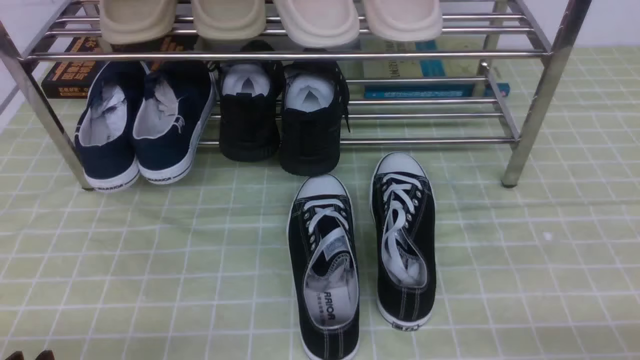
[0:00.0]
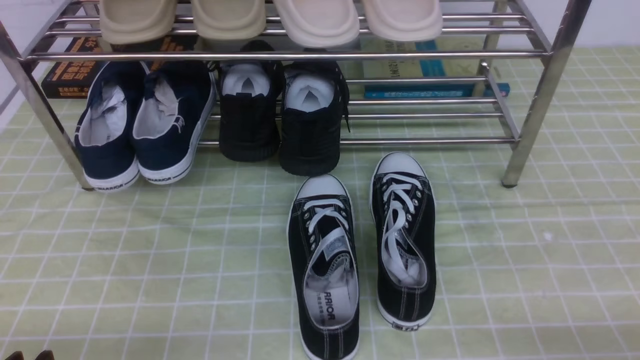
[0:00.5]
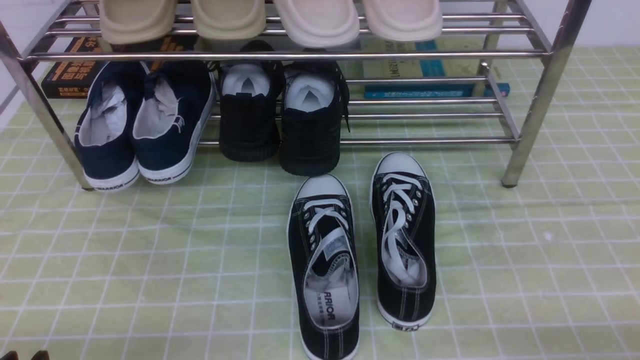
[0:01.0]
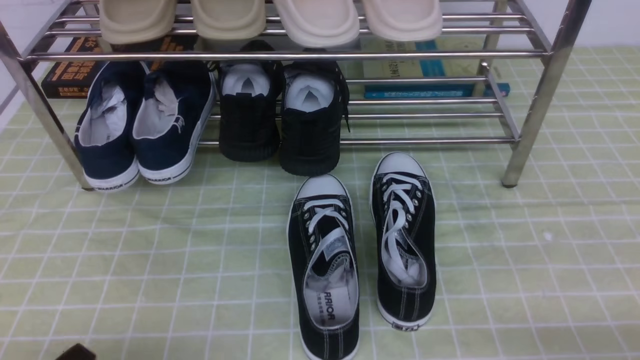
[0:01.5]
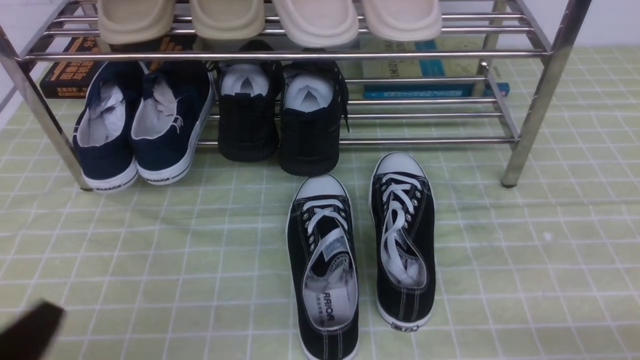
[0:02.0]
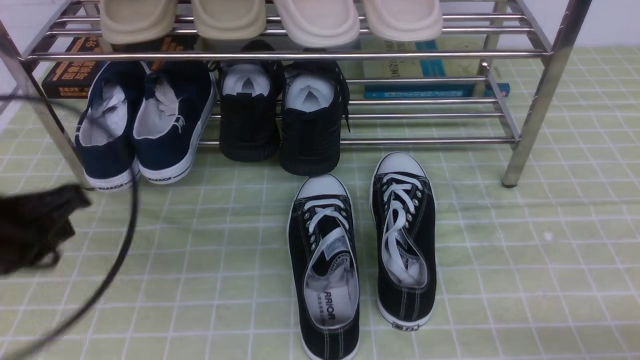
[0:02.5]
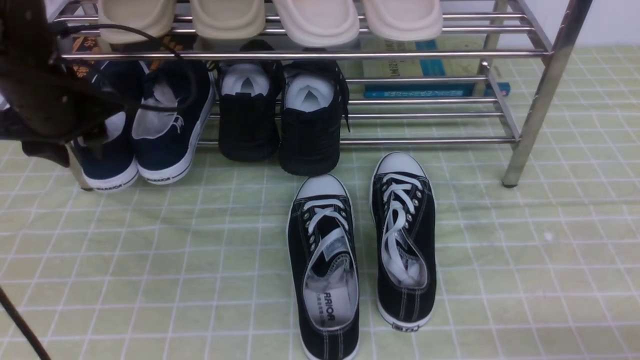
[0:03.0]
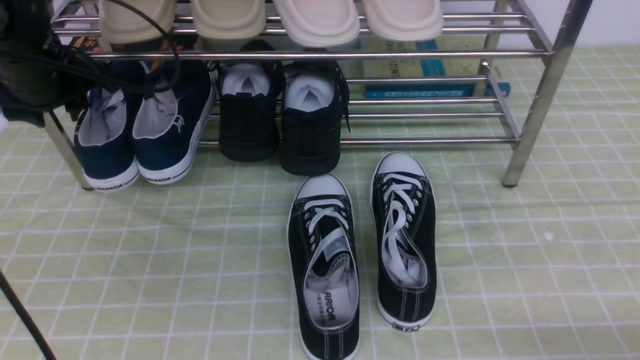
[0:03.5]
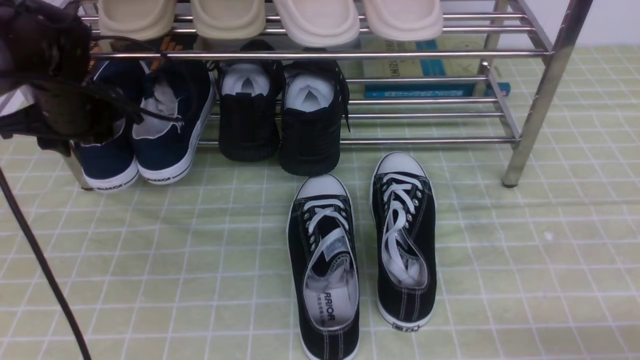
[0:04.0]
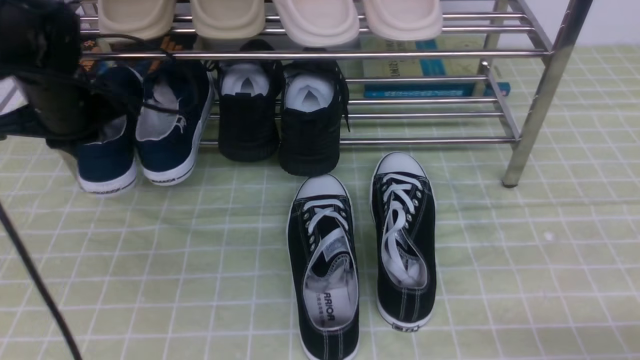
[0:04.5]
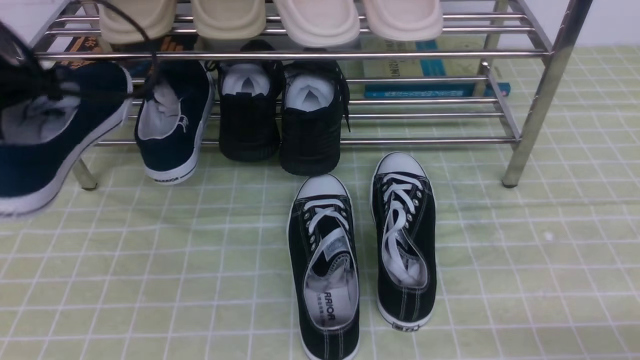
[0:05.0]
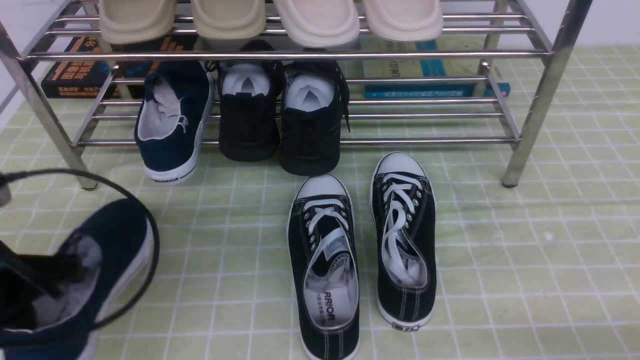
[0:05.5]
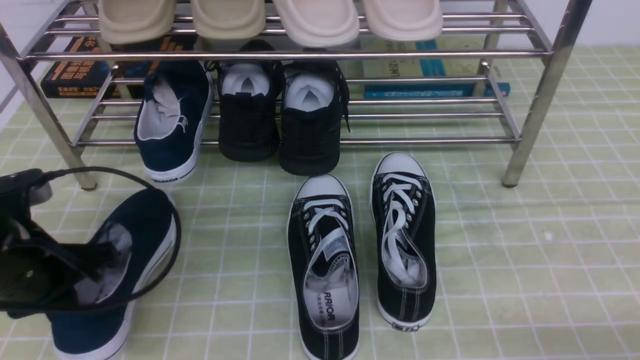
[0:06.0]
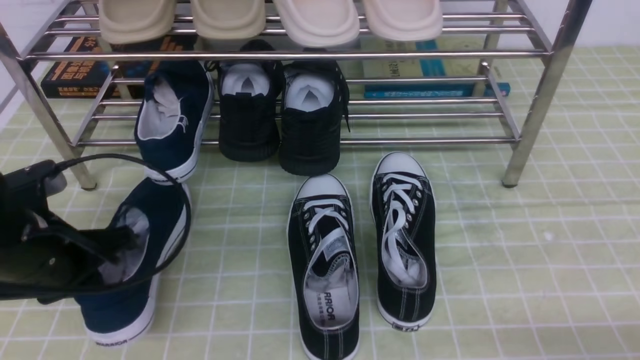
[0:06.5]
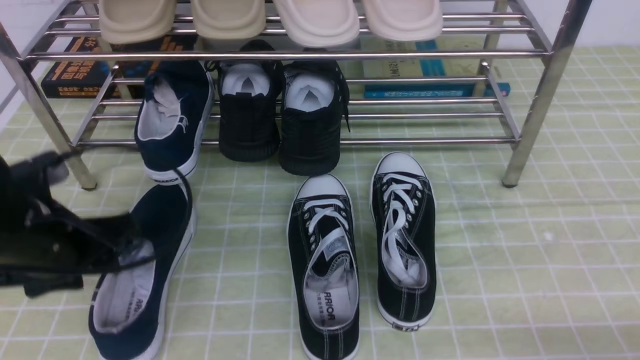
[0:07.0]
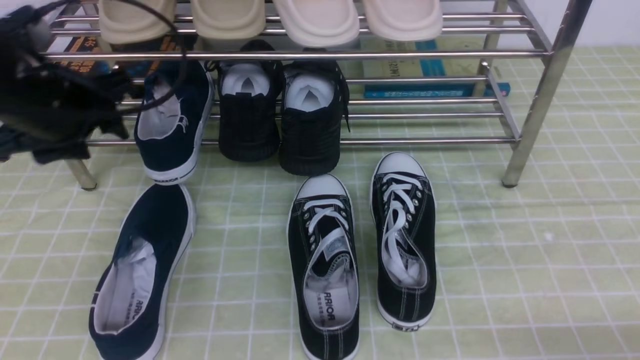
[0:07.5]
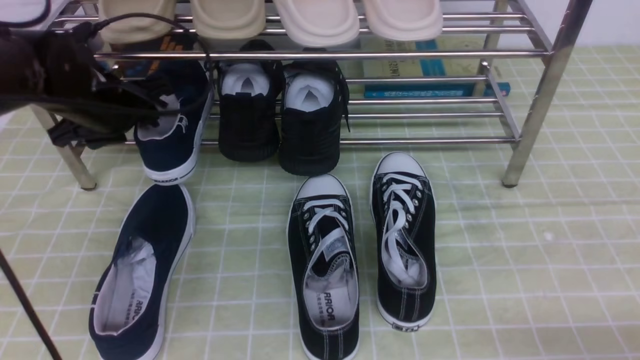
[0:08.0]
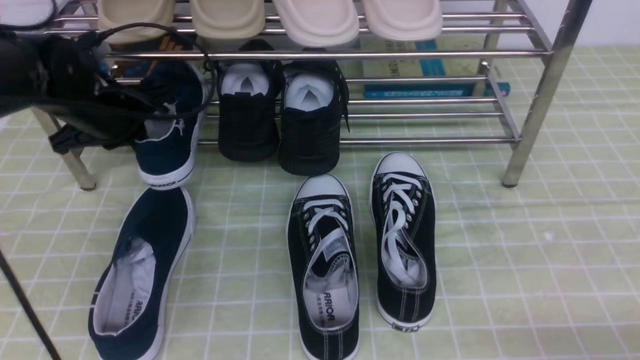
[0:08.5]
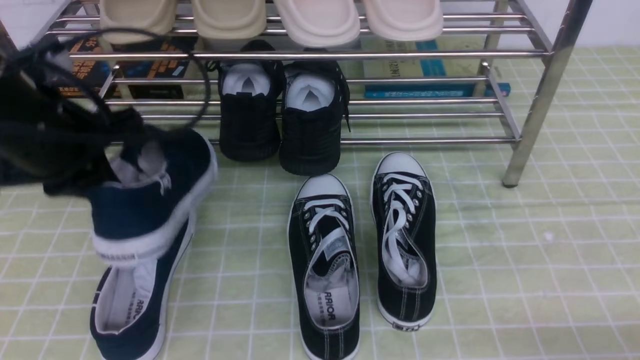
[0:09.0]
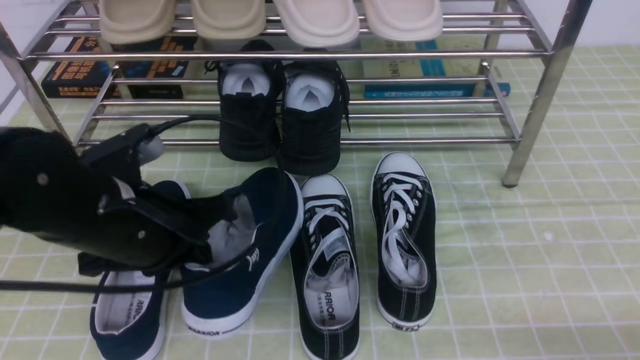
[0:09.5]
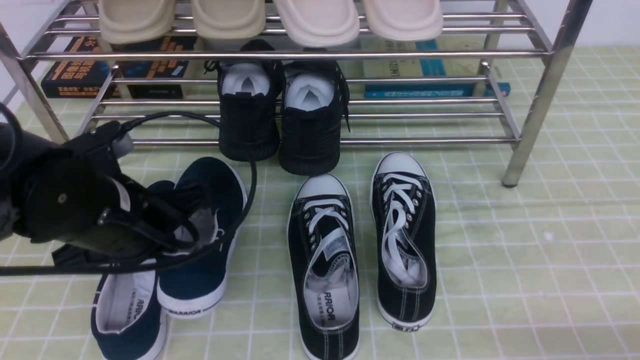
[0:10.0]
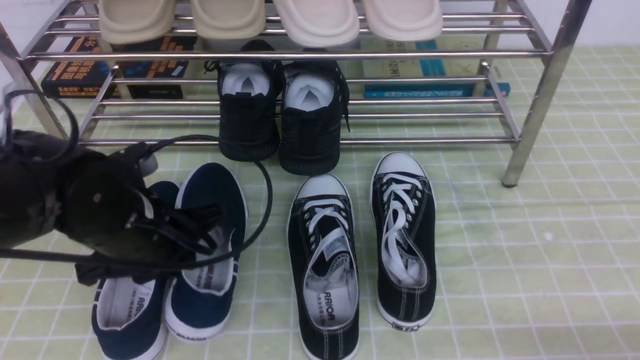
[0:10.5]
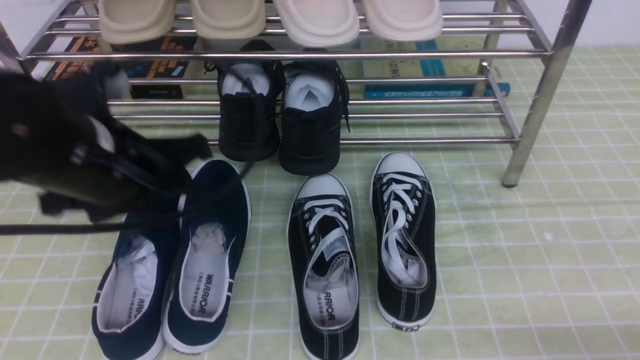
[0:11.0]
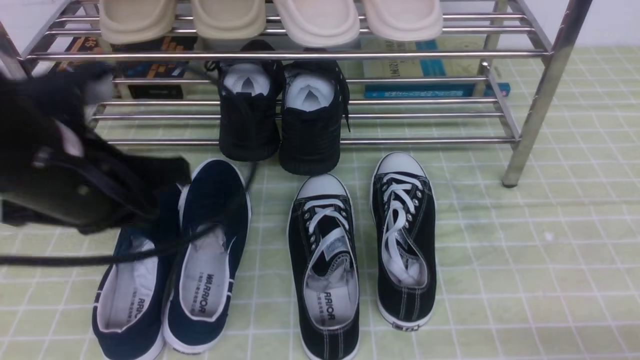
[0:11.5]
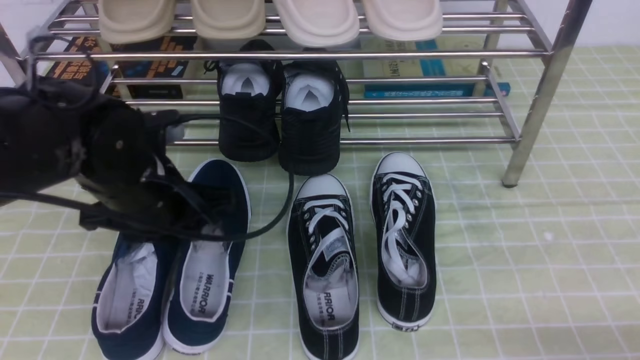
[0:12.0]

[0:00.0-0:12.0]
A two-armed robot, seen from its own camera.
Step, 0:00.0 to 0:04.0: use the left arm to clamp a shoe on the left side of the shoe rack.
Step, 0:05.0 to 0:07.0: Use your left arm to remove the clamped shoe from the shoe rack and put it down.
Step, 0:07.5 to 0:08.0: use the left arm to clamp a shoe on the left side of the shoe rack.
Step, 0:08.5 to 0:11.0: Use your left arm to remove the clamped shoe from the shoe rack and put it down.
0:00.0 to 0:02.0: The left gripper heads upward, covering about 5 cm.
0:02.0 to 0:04.0: The left gripper heads forward, covering about 35 cm, and opens its fingers.
0:04.0 to 0:06.0: The left gripper shifts about 20 cm backward, and closes up.
0:06.0 to 0:08.0: The left gripper travels forward by approximately 20 cm, and opens.
0:08.0 to 0:10.0: The left gripper goes about 15 cm backward and to the right, and closes its fingers.
0:10.0 to 0:12.0: The left gripper goes upward and returns, approximately 5 cm each way, and opens.

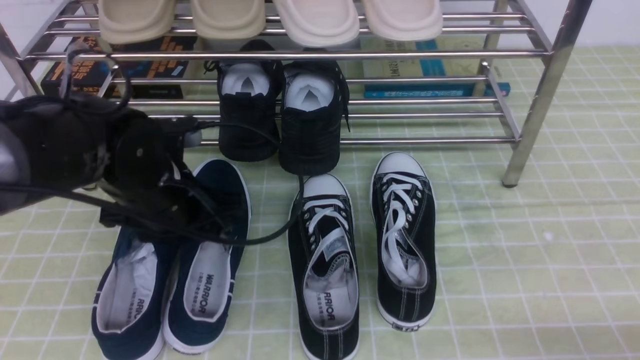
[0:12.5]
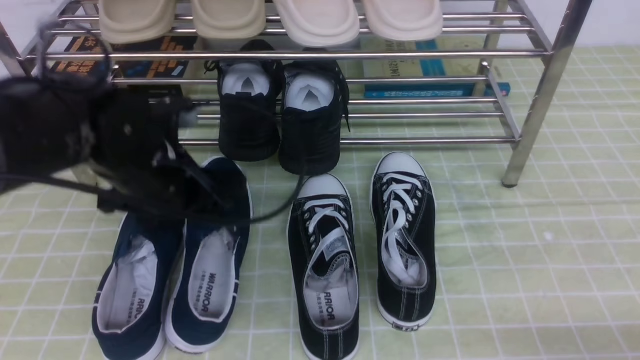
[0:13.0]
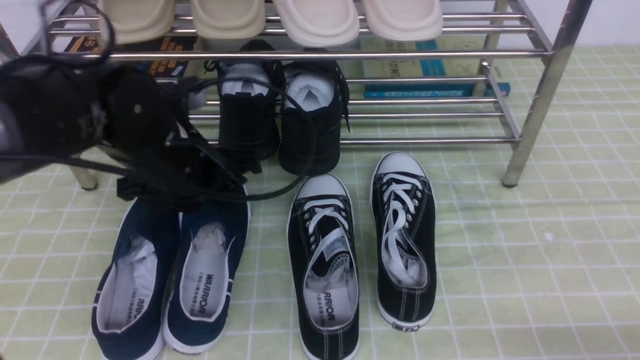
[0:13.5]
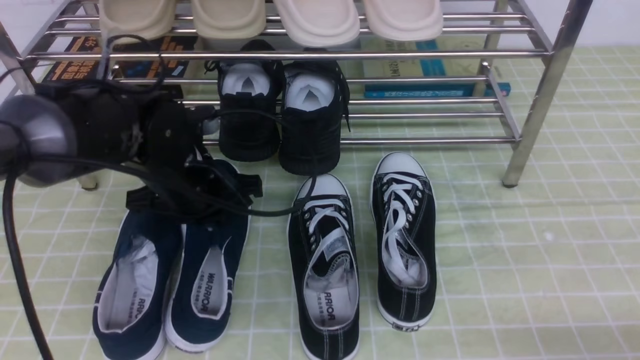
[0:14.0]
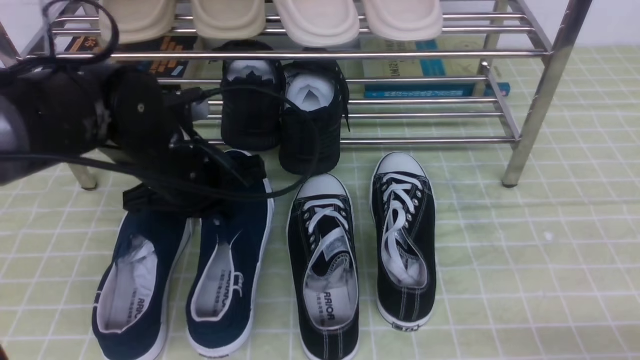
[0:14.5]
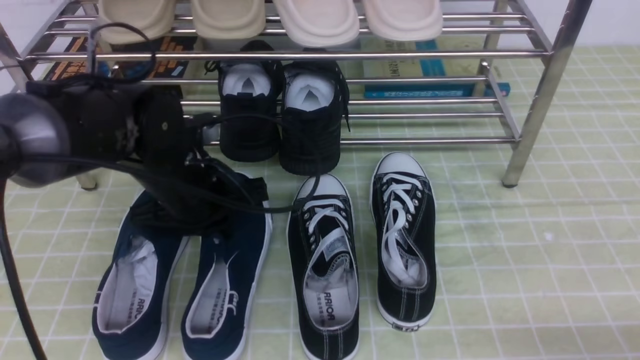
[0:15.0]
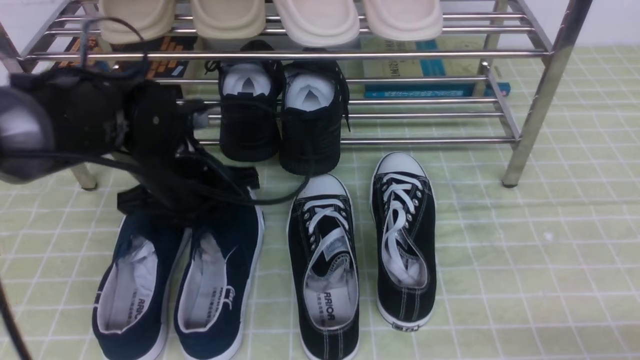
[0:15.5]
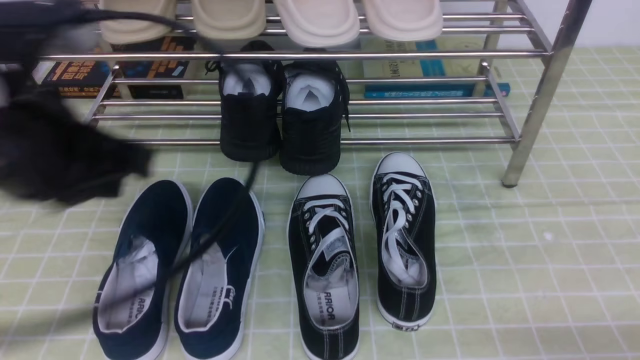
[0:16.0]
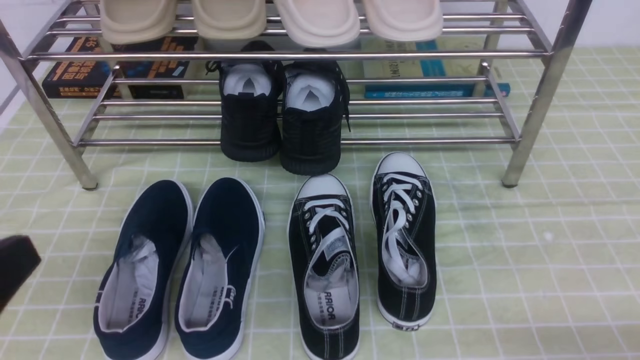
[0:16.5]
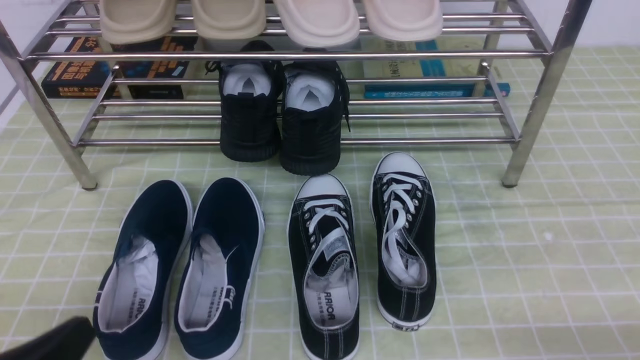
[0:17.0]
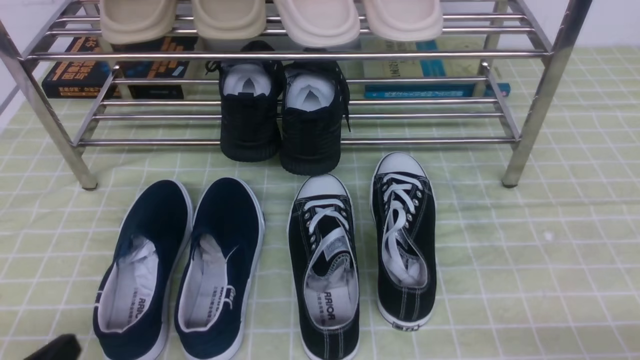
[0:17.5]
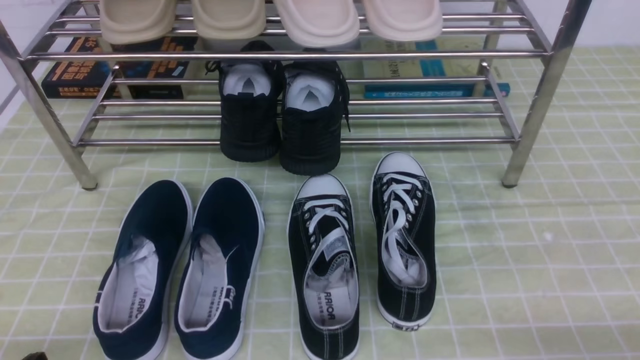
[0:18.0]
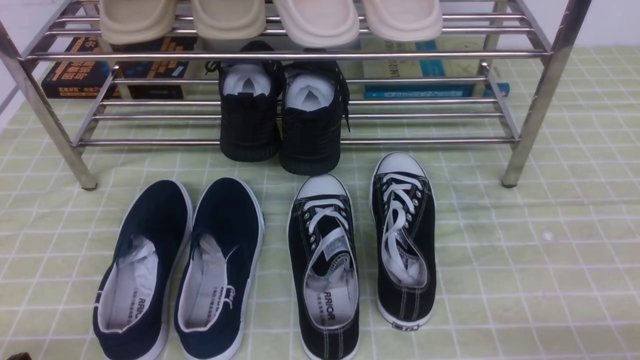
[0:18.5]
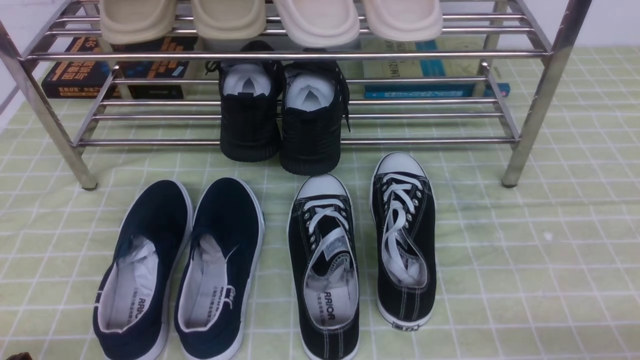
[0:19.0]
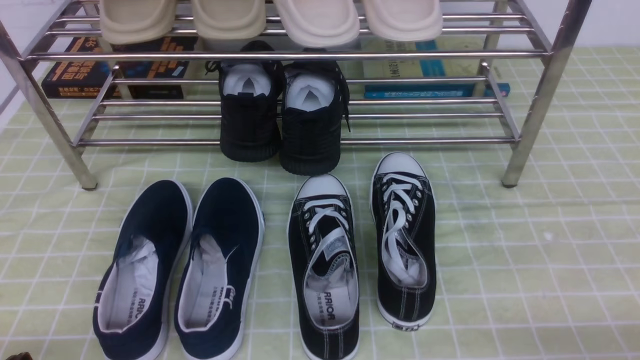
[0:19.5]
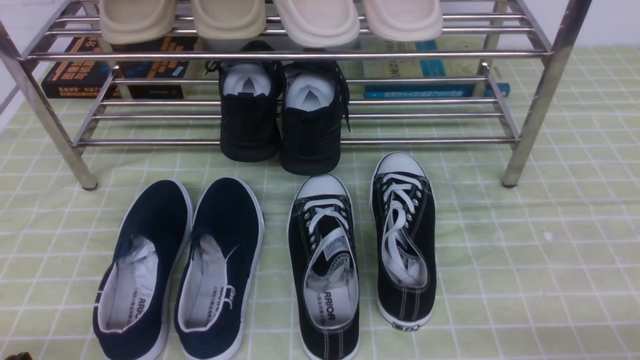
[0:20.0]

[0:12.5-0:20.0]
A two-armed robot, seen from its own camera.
0:12.5 to 0:14.5: The left gripper closes.
0:14.5 to 0:16.5: The left gripper travels backward and to the left by about 30 cm, and opens, then closes once more.
0:16.5 to 0:18.0: The left gripper shifts some 15 cm downward.
0:18.0 to 0:20.0: Neither gripper changes place.
